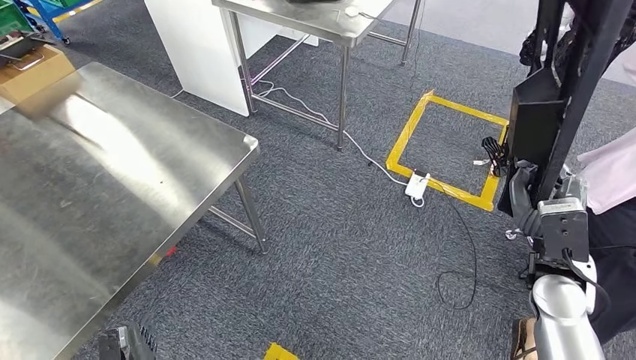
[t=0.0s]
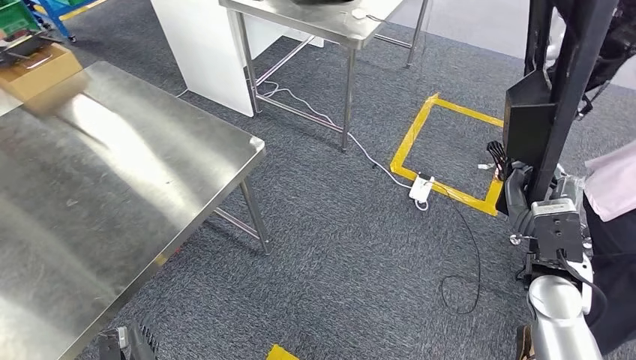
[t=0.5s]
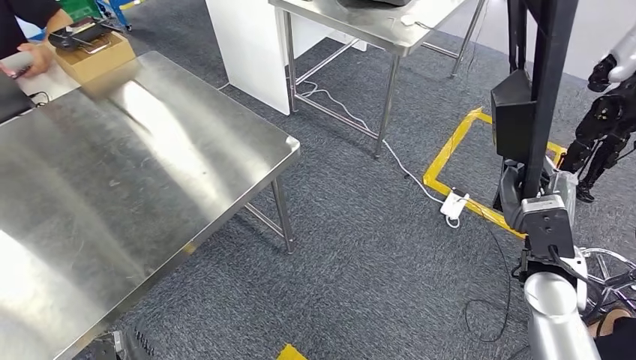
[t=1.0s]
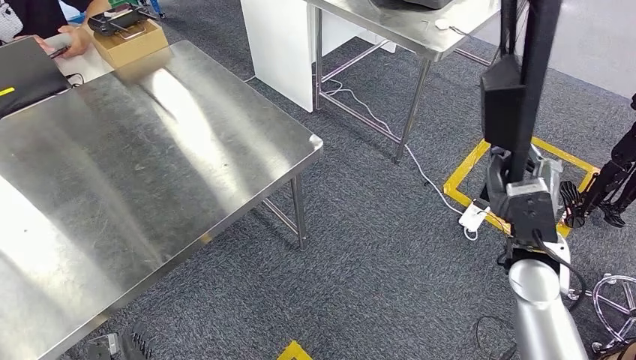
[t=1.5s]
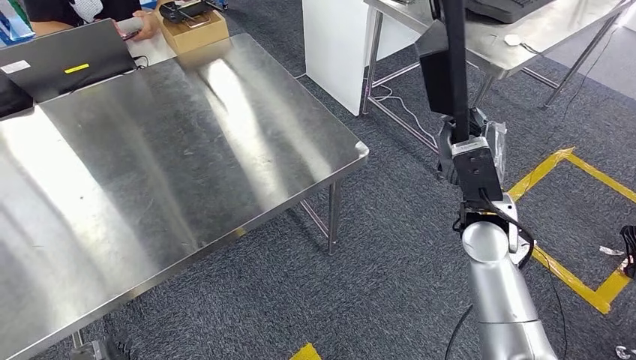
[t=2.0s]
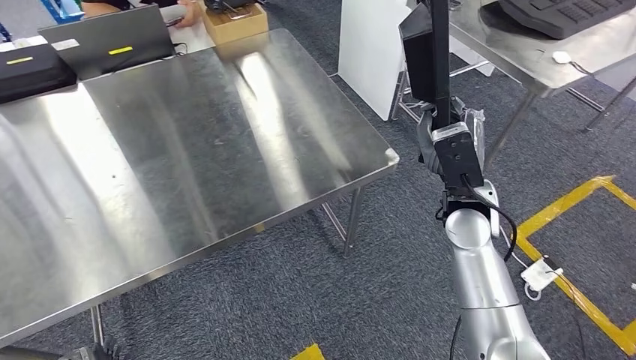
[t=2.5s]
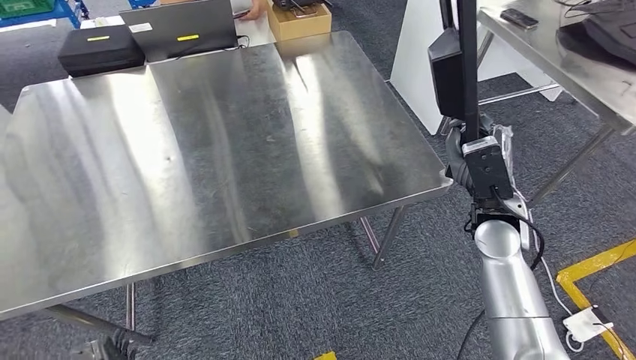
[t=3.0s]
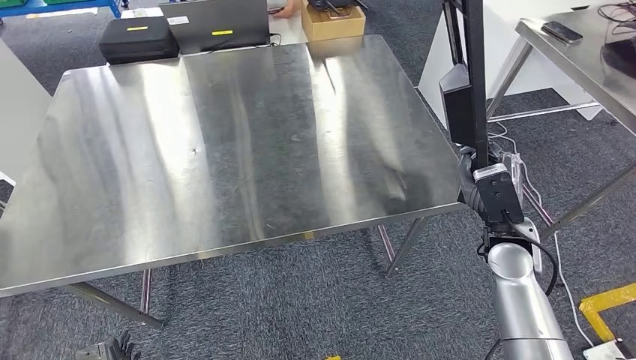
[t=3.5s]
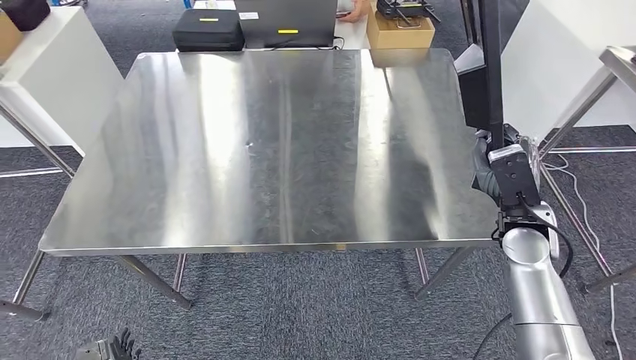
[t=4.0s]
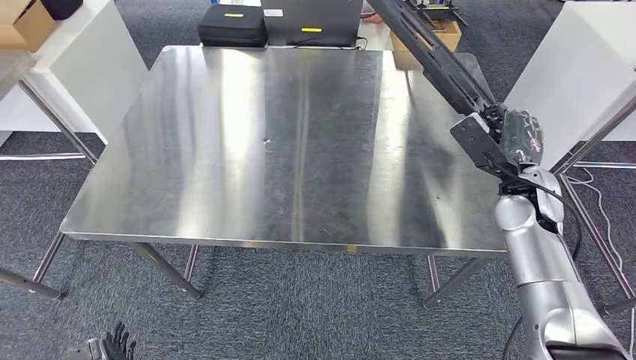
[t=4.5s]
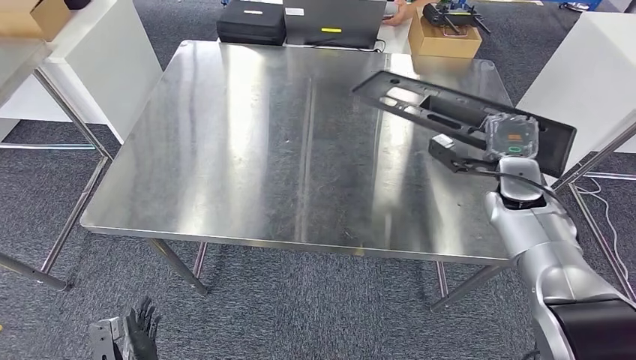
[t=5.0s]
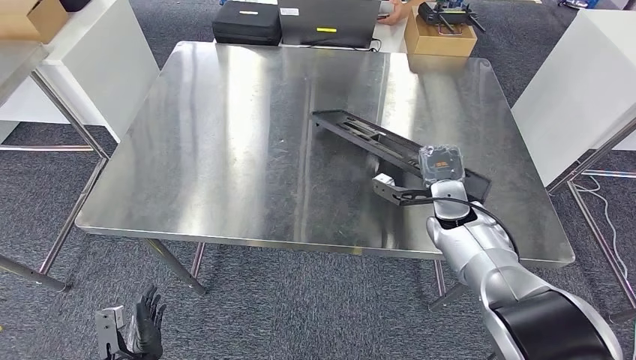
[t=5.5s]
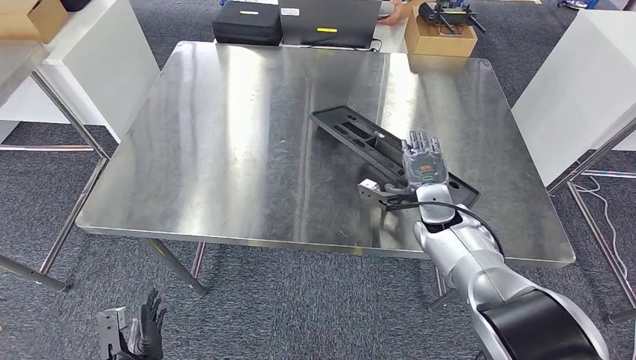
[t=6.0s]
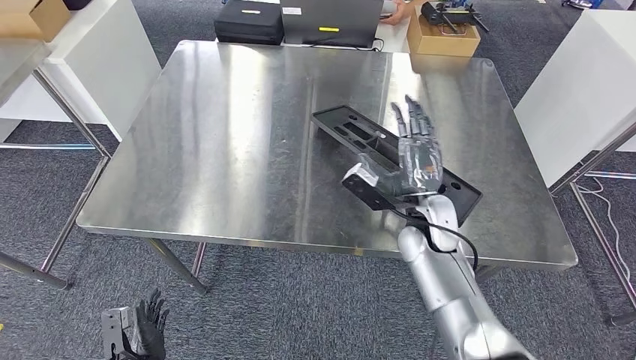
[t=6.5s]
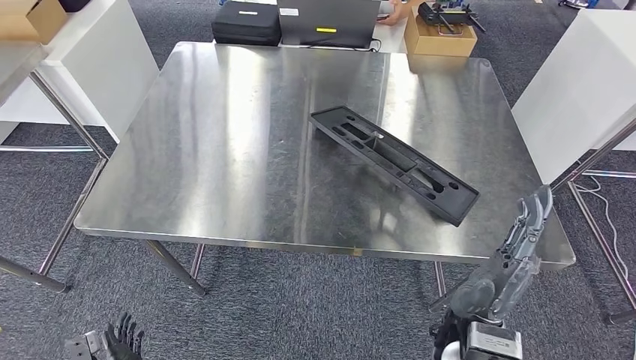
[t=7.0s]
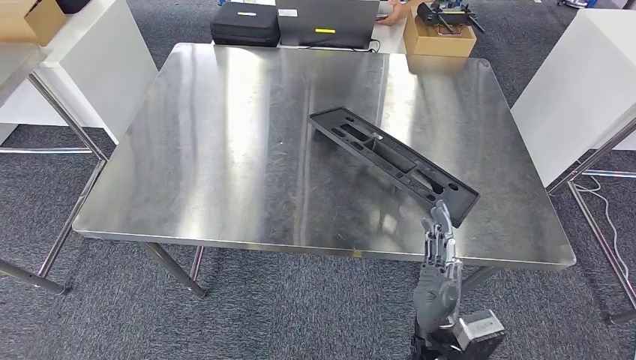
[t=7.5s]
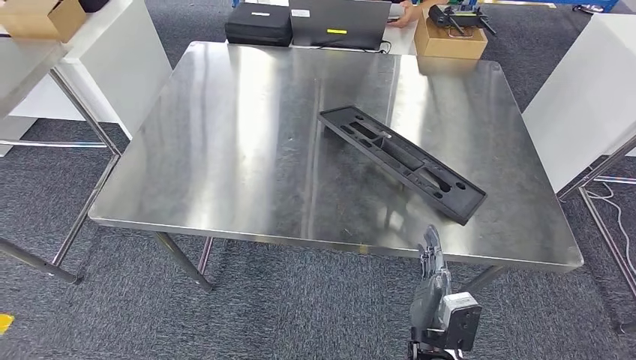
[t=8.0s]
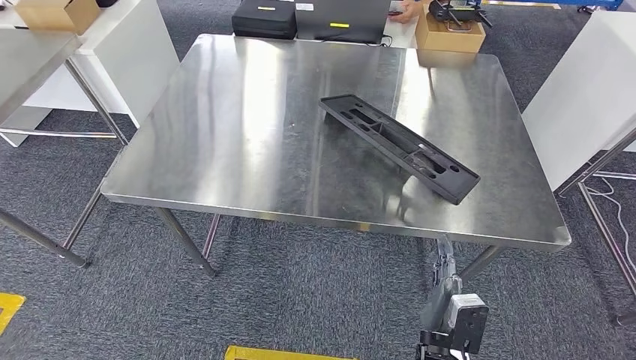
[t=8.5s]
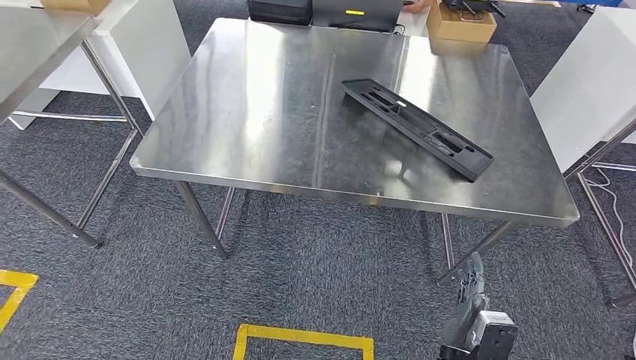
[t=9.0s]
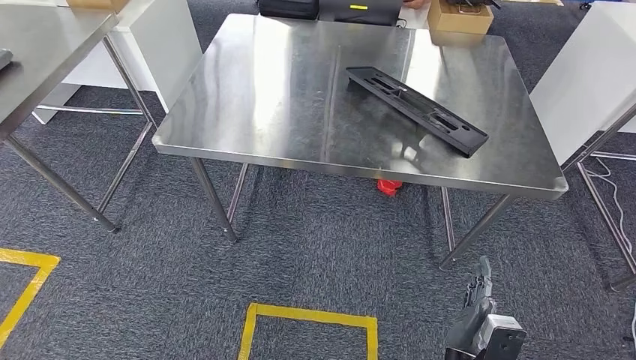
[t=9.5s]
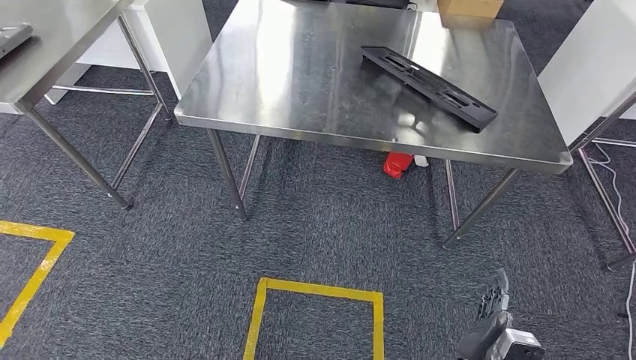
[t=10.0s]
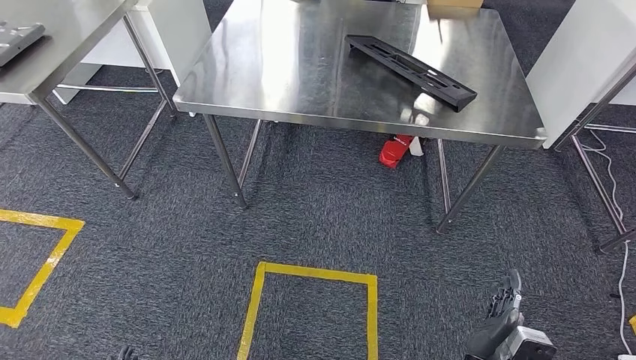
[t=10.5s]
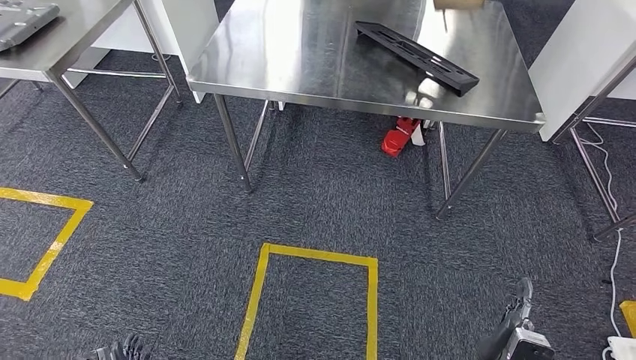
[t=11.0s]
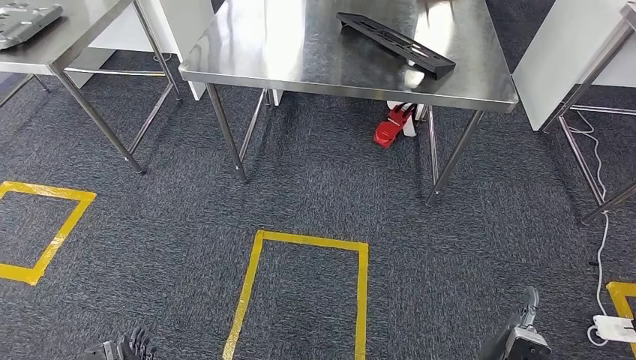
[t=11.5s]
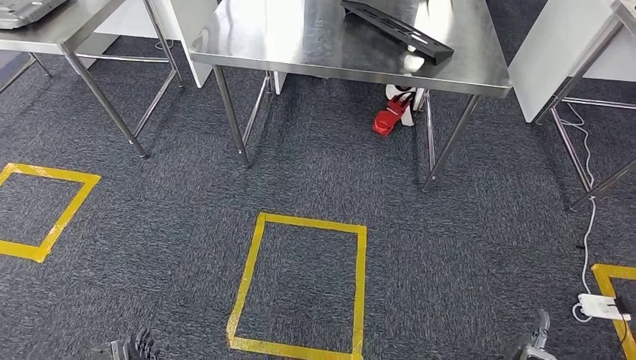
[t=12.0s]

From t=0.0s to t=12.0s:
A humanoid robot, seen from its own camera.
Step, from t=0.0s to t=3.0s: Move the large material to the workbench.

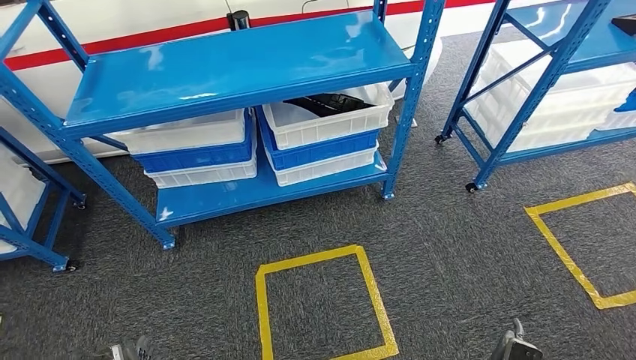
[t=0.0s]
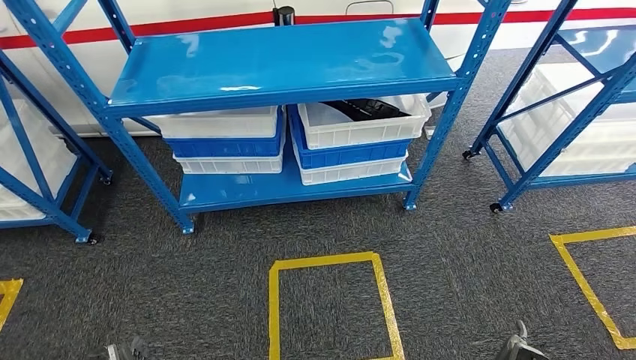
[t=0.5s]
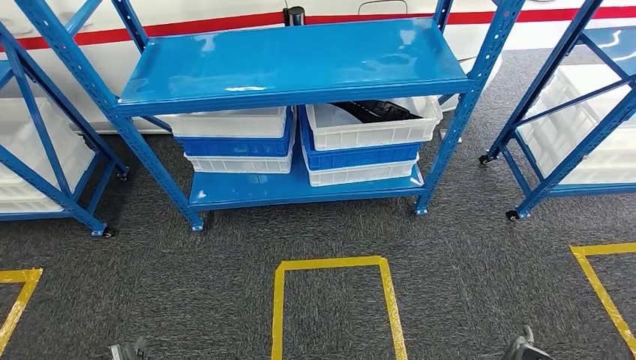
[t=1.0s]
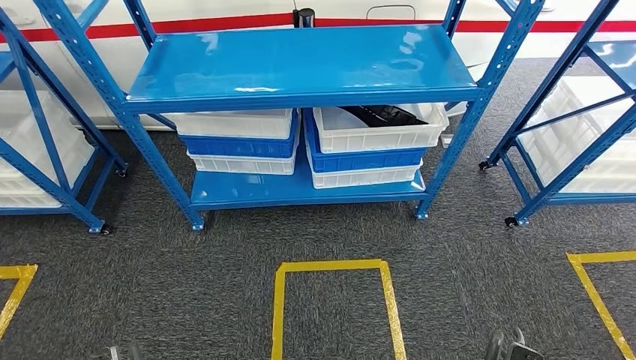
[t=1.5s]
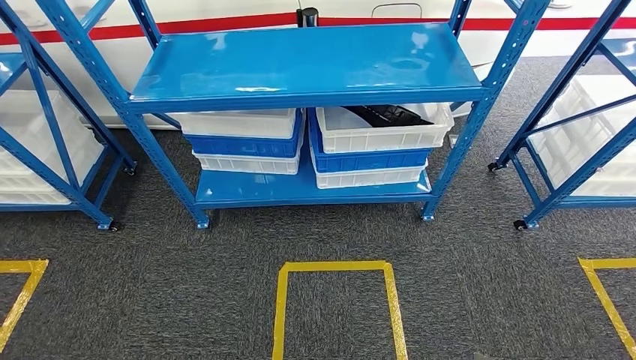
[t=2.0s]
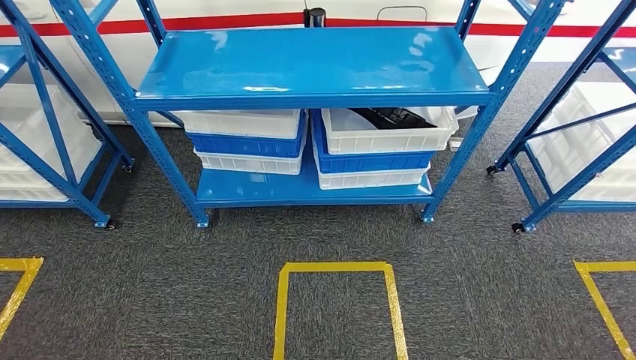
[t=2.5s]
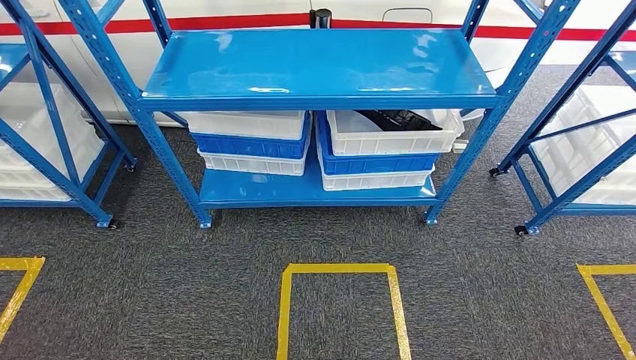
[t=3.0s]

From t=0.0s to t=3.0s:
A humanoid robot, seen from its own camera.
Step, from t=0.0s to t=3.0s: Move to the initial position of the shelf.
